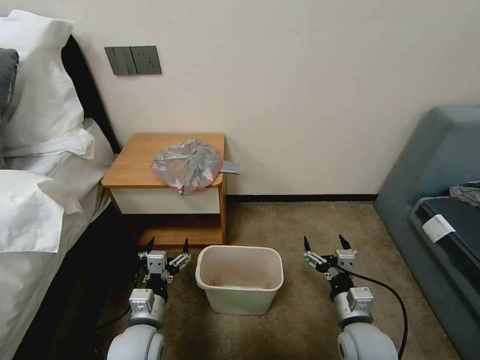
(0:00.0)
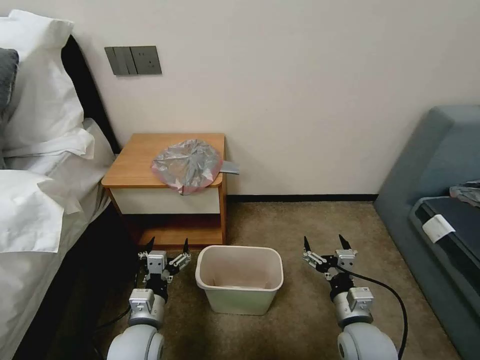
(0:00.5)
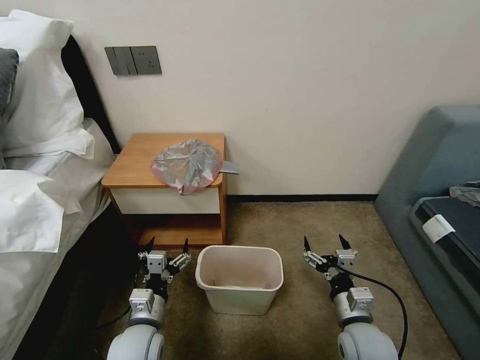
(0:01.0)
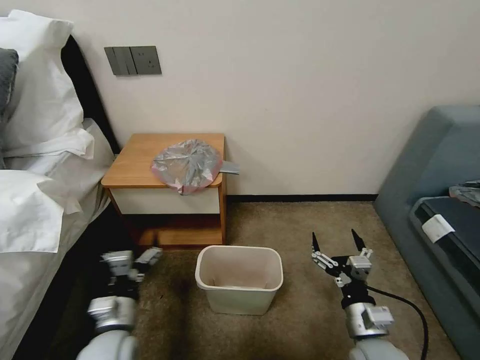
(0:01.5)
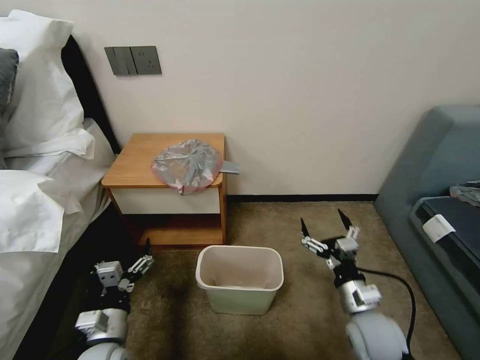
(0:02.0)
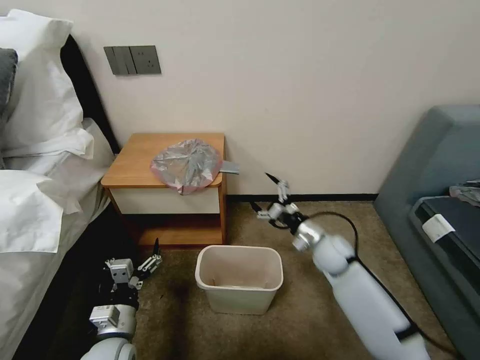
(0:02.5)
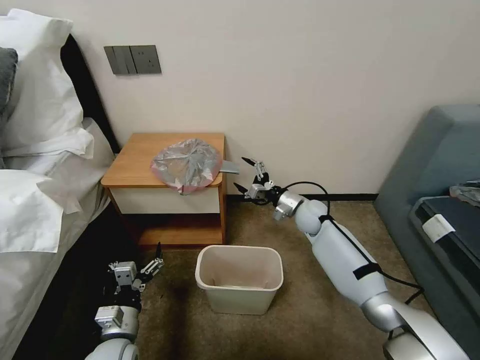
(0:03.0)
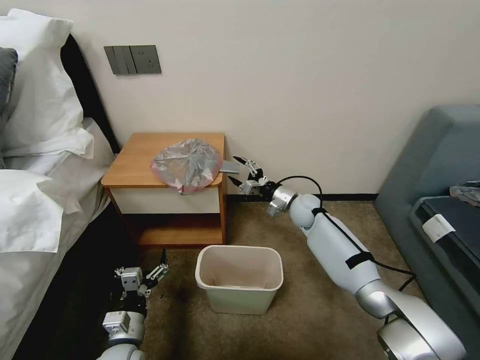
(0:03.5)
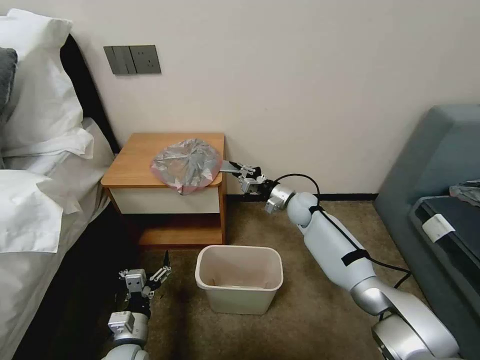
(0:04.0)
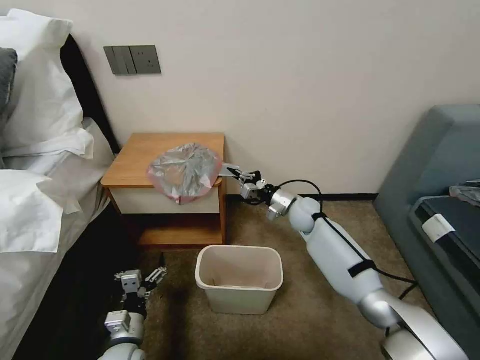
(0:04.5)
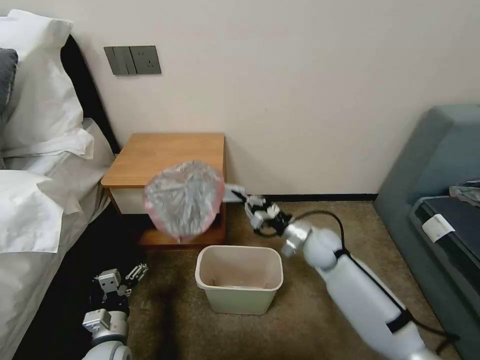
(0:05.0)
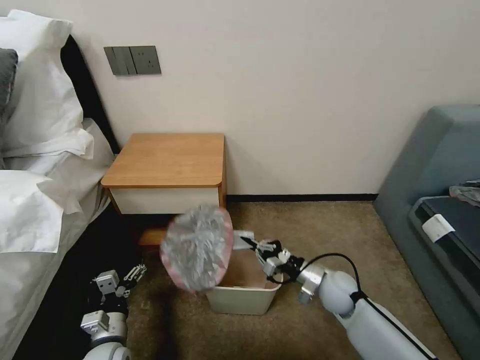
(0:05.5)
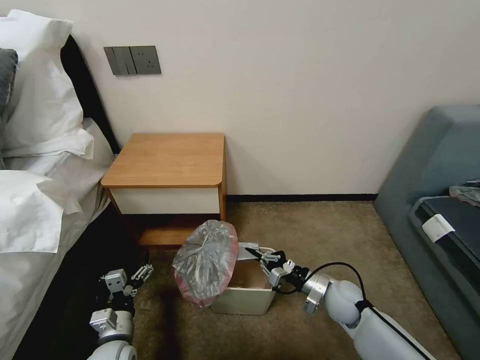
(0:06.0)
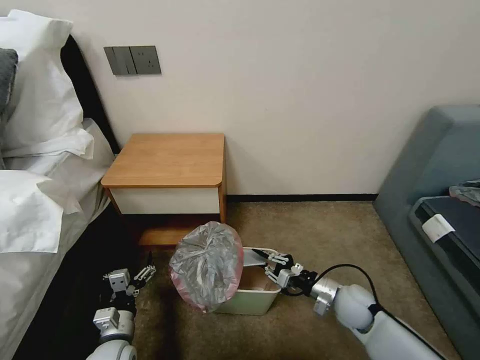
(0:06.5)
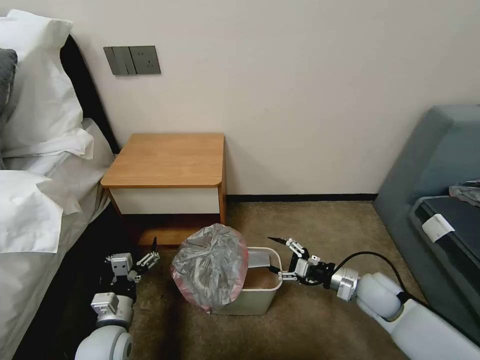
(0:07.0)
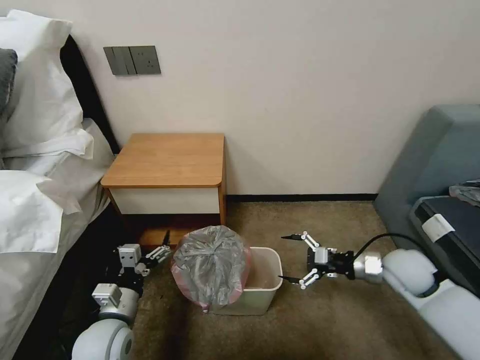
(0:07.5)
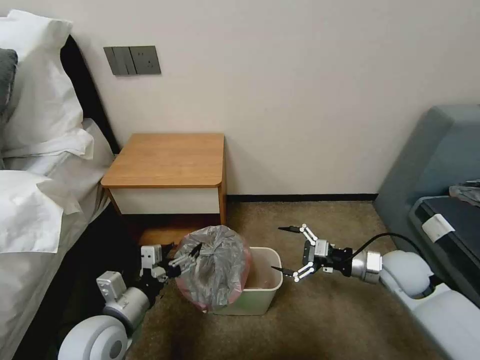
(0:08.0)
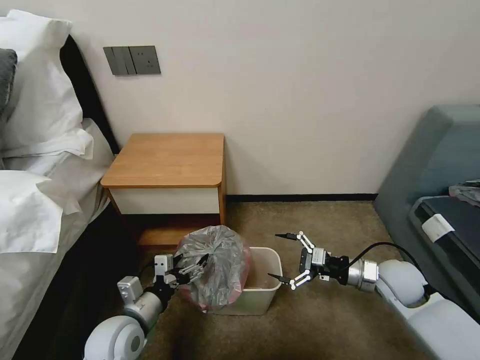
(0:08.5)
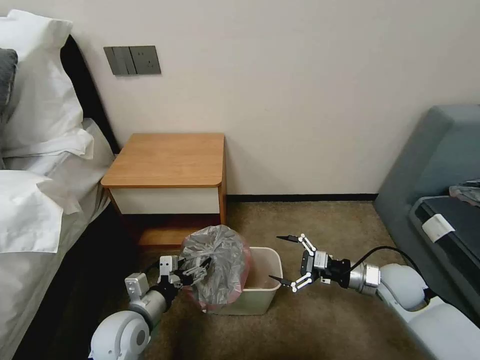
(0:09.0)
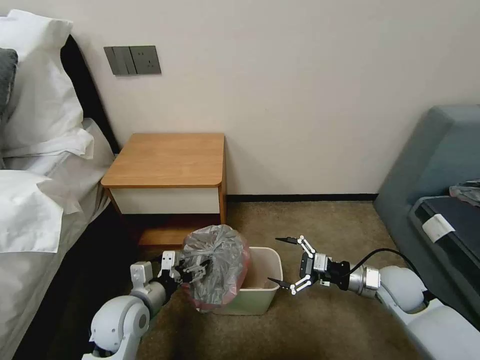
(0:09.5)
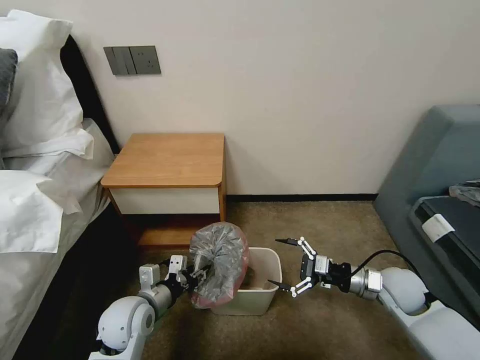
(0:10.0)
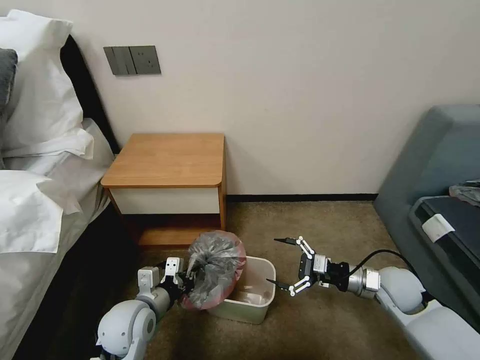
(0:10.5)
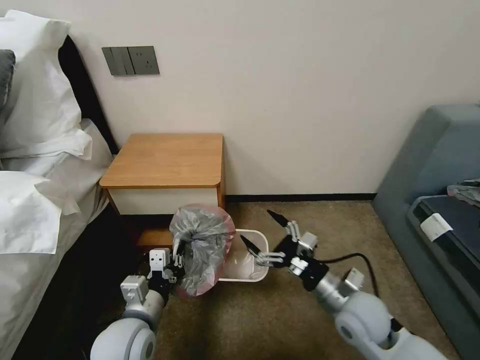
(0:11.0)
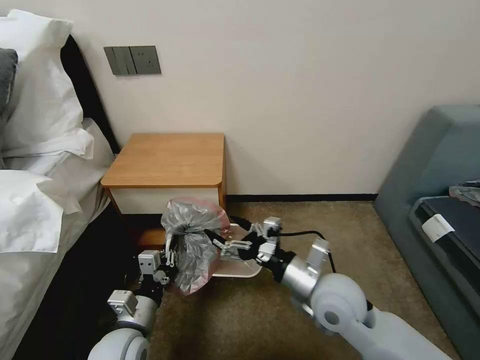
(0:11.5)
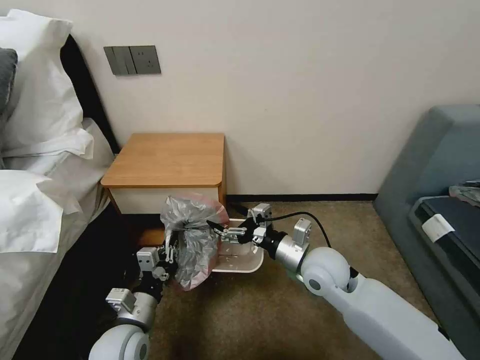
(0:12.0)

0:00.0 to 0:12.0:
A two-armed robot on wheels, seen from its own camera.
Task of the whole recording: Pick up the garbage bag from the table and place it over the trash can.
0:02.0 to 0:04.0: The left gripper is displaced downward by about 5 cm; the right gripper goes about 30 cm forward, and closes.
0:04.0 to 0:06.0: The right gripper heads backward and downward, covering approximately 25 cm.
0:06.0 to 0:08.0: The right gripper moves upward and to the right, roughly 15 cm, and opens, while the left gripper travels upward by some 15 cm.
0:08.0 to 0:10.0: The left gripper heads downward and forward, covering roughly 10 cm, and closes its fingers.
0:10.0 to 0:12.0: The left gripper heads backward, covering some 5 cm, and closes up, while the right gripper travels to the left by about 20 cm.

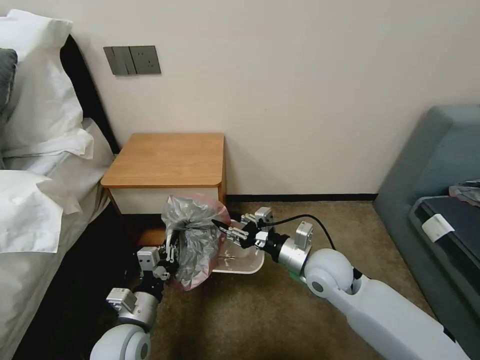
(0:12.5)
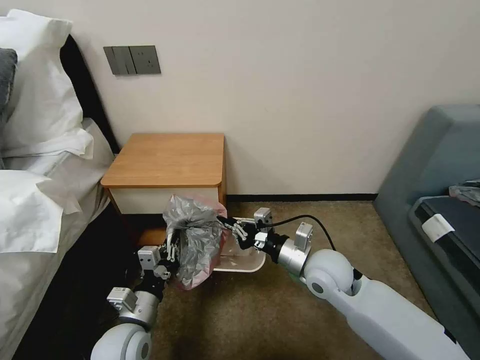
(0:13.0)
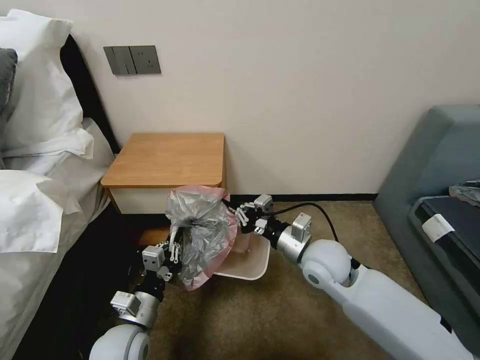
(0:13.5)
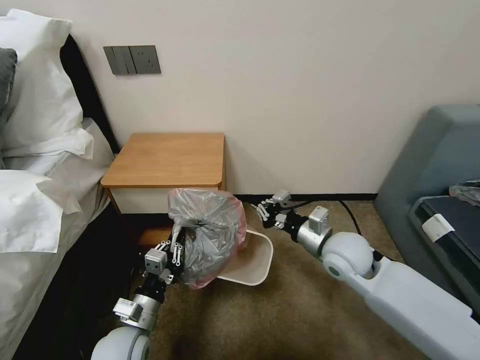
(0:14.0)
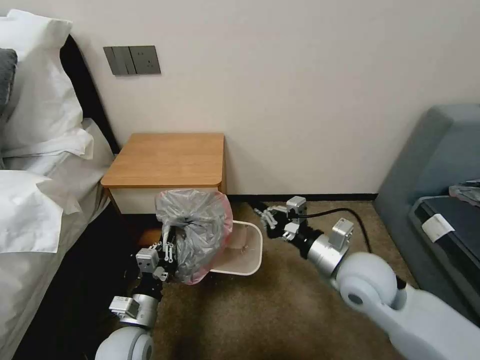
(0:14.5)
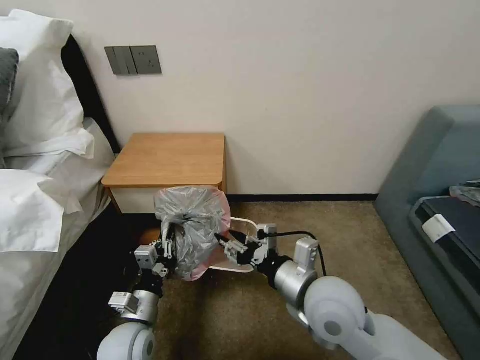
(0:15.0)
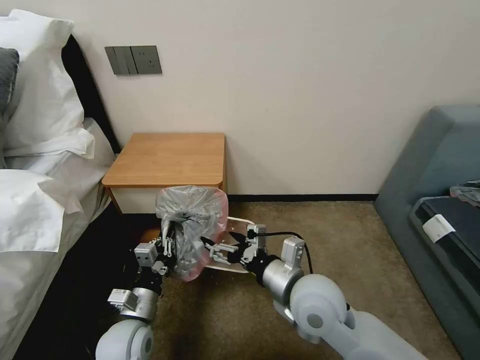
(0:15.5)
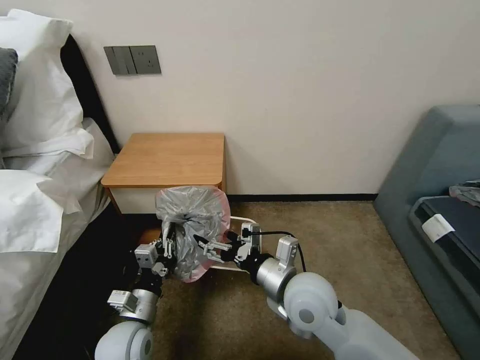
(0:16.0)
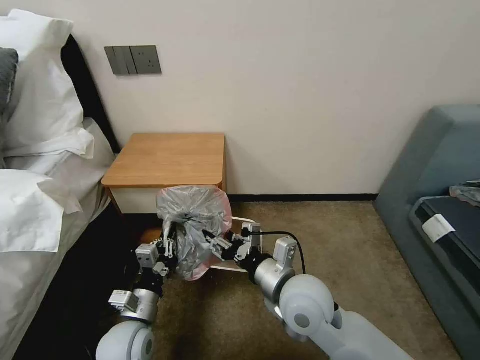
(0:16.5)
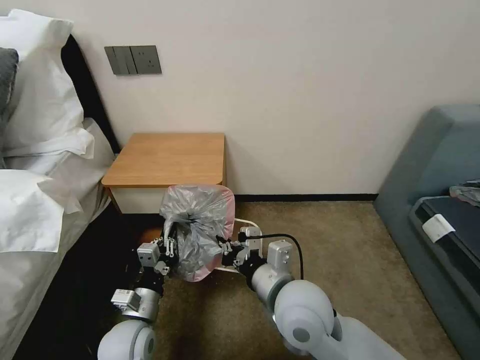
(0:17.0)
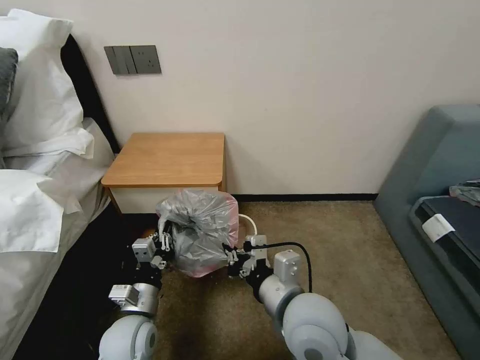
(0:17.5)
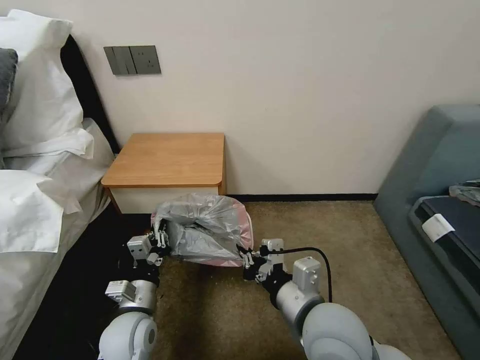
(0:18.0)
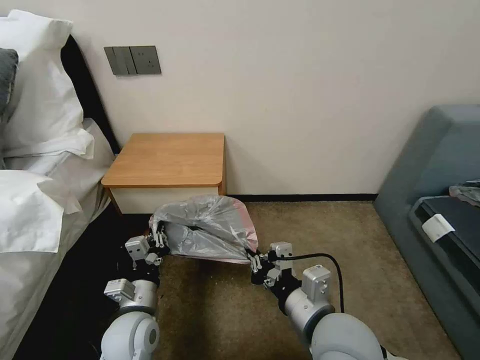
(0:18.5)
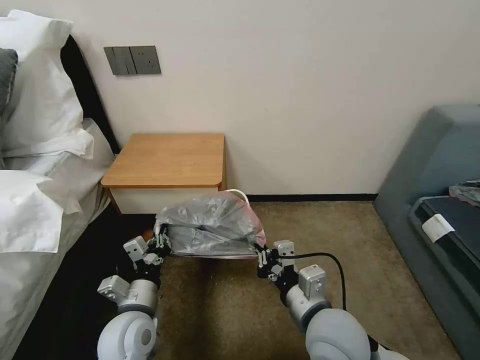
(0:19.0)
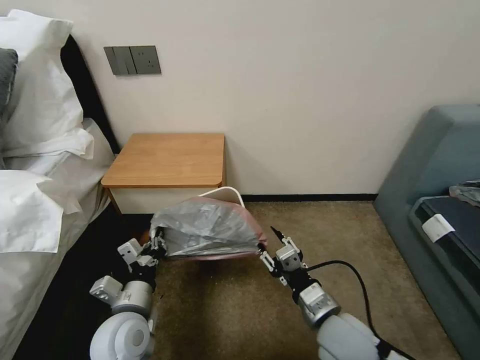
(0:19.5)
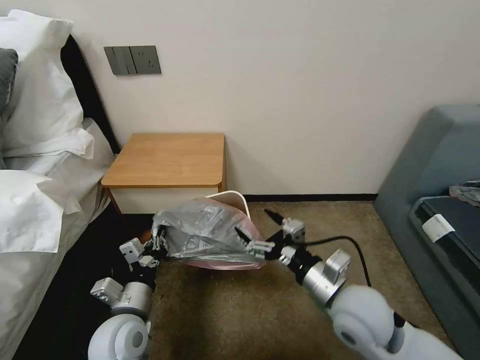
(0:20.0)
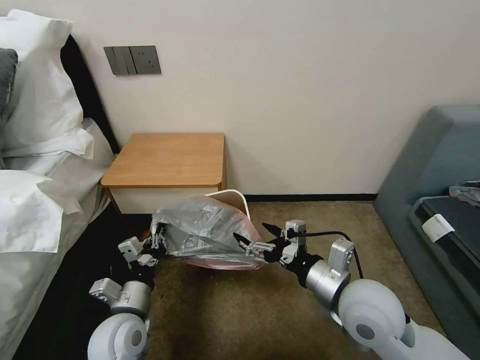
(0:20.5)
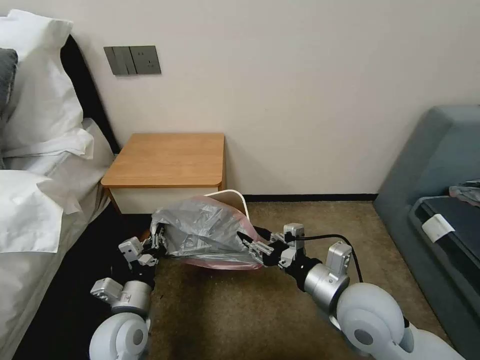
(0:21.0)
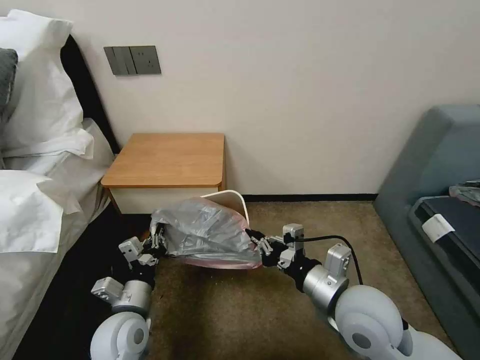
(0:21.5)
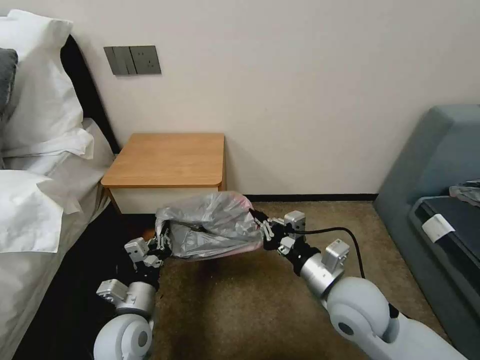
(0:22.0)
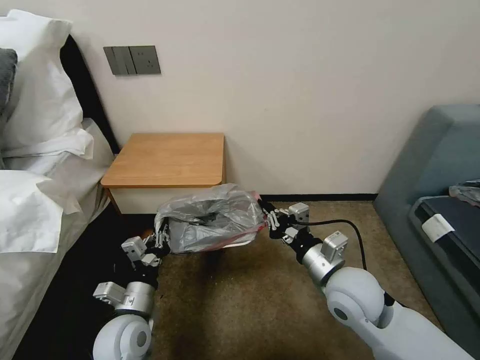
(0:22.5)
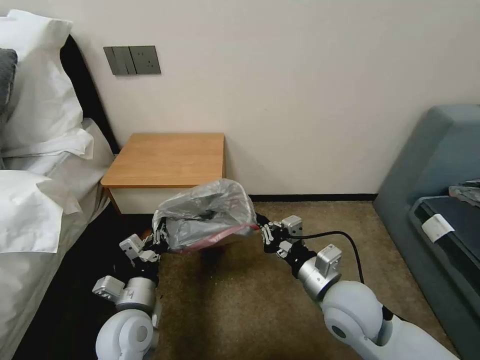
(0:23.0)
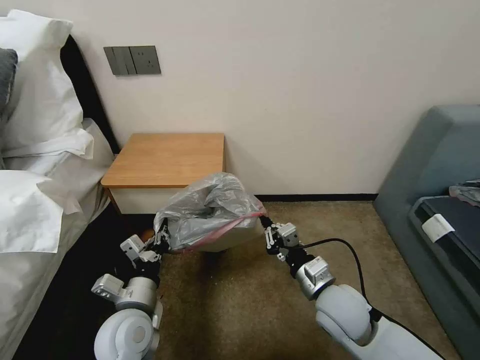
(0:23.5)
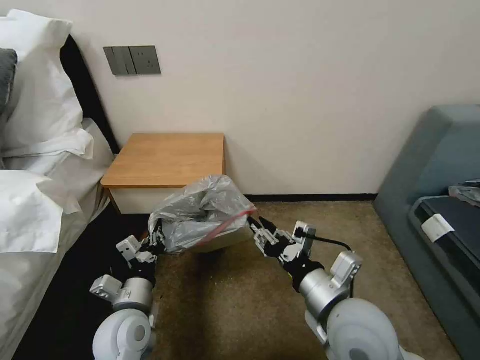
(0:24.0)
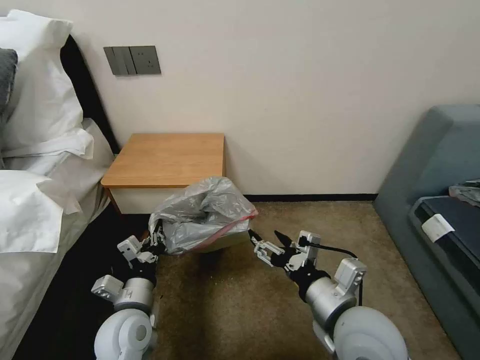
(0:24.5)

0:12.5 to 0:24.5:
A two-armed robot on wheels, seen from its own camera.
Task of the whole recording: Pick up the garbage bag from the table and place it over the trash can.
0:12.5 to 0:14.5: The right gripper moves some 5 cm, and closes its fingers.
0:14.5 to 0:16.5: The right gripper moves to the left, about 10 cm, and opens.
0:16.5 to 0:18.5: The right gripper travels backward by some 10 cm, and closes up.
0:18.5 to 0:20.5: The right gripper goes approximately 10 cm to the right and forward, travels downward and back again, about 10 cm each way, and opens up.
0:20.5 to 0:22.5: The right gripper closes up.
0:22.5 to 0:24.5: The right gripper shifts roughly 10 cm backward, and opens its fingers.

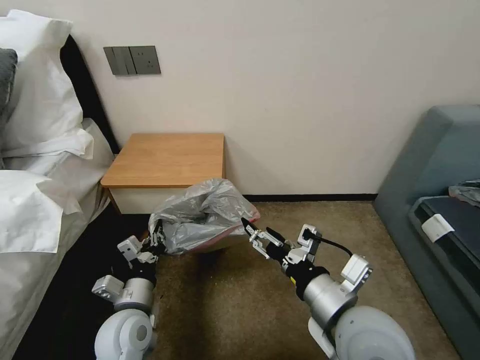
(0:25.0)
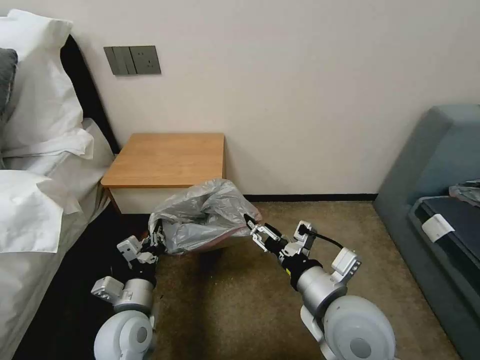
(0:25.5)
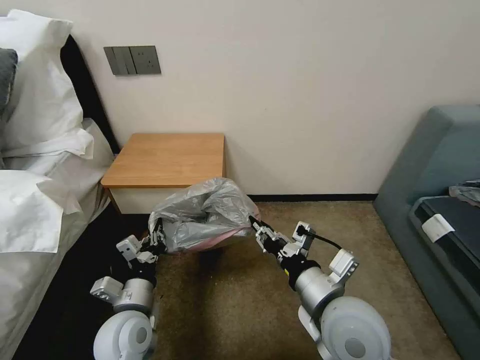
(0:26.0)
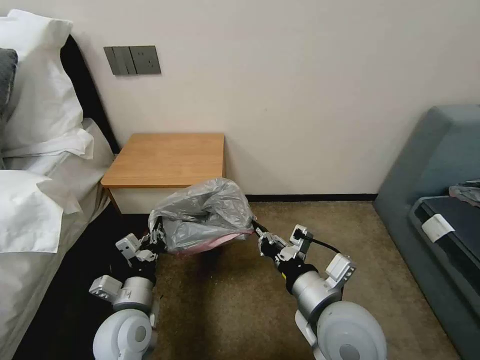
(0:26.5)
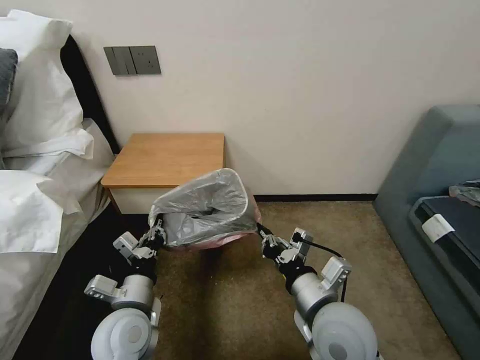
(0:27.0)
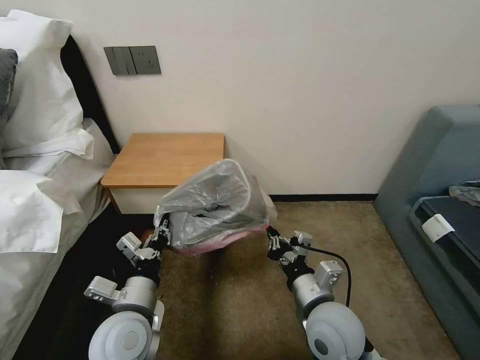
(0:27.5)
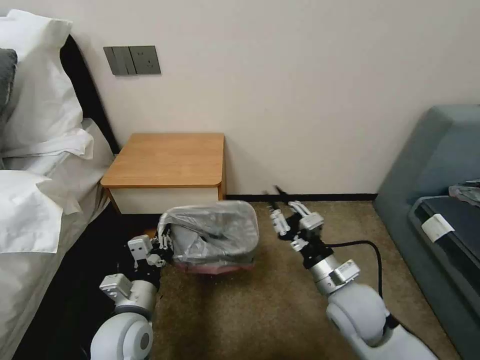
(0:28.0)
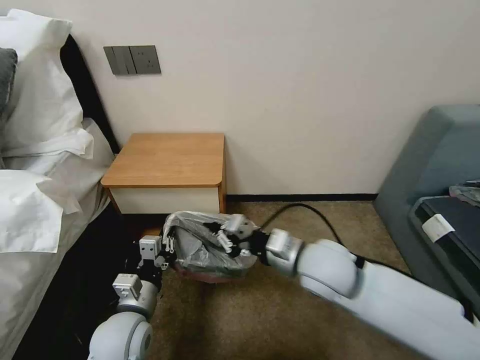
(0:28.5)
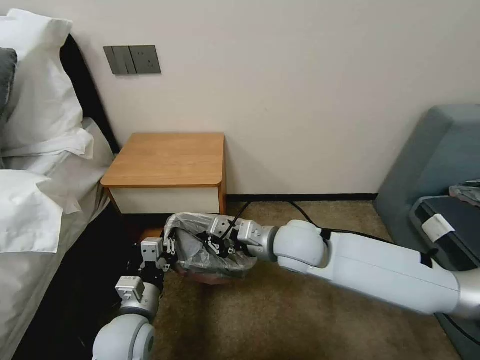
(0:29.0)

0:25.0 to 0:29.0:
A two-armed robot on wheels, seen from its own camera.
Task of the whole recording: Pick up the garbage bag from the table and place it over the trash can.
0:25.0 to 0:27.0: The right gripper travels downward by some 5 cm, and closes up.
0:27.0 to 0:29.0: The right gripper is displaced forward by about 15 cm.
